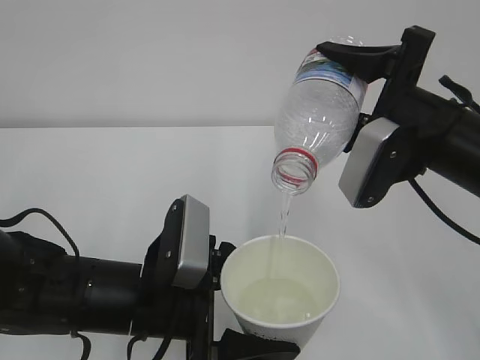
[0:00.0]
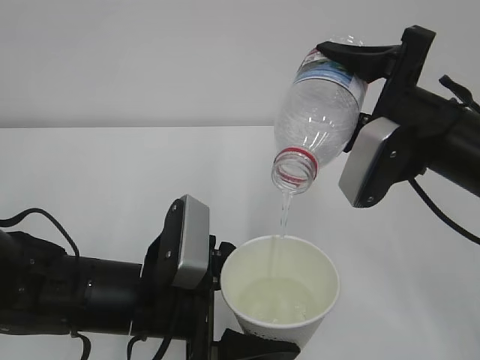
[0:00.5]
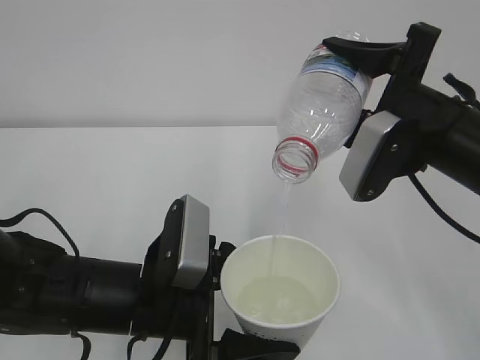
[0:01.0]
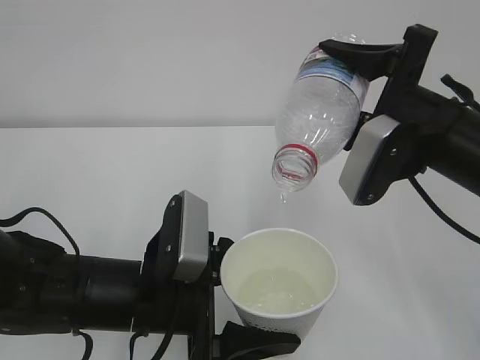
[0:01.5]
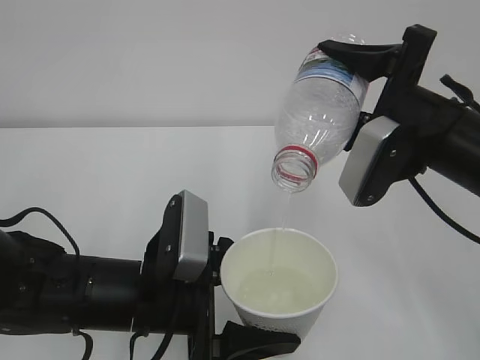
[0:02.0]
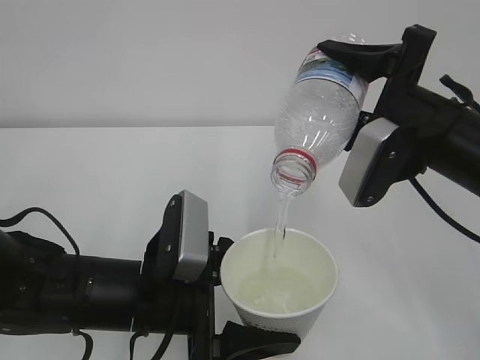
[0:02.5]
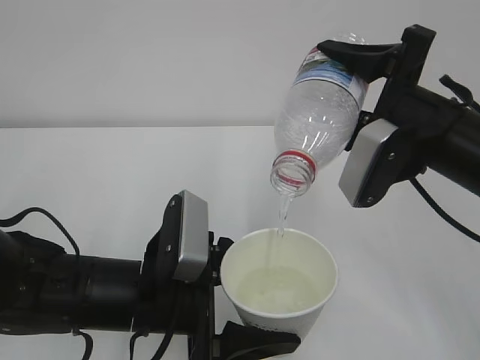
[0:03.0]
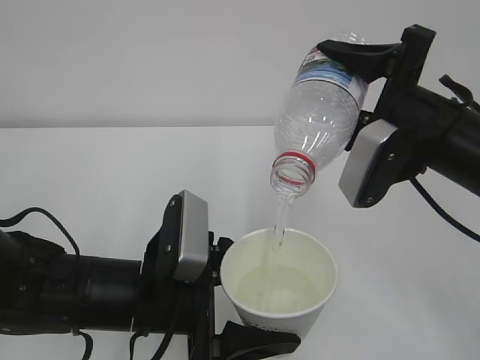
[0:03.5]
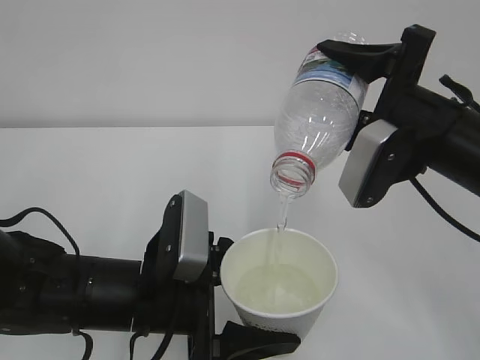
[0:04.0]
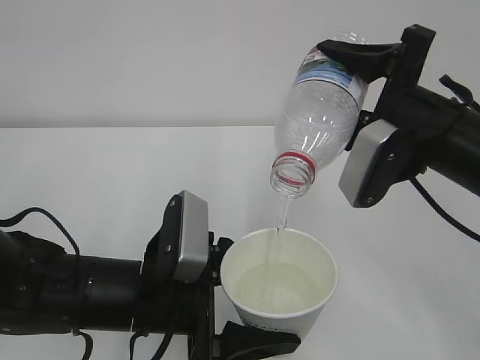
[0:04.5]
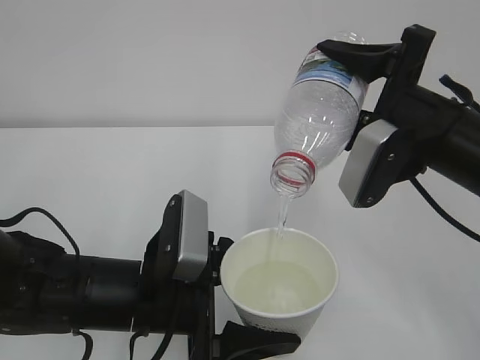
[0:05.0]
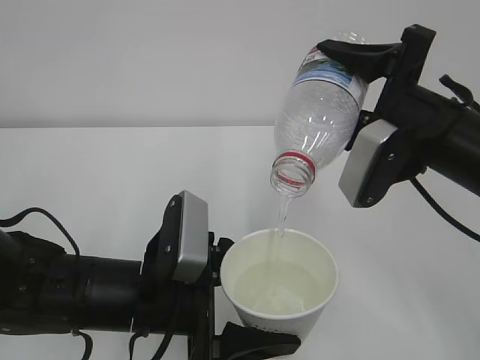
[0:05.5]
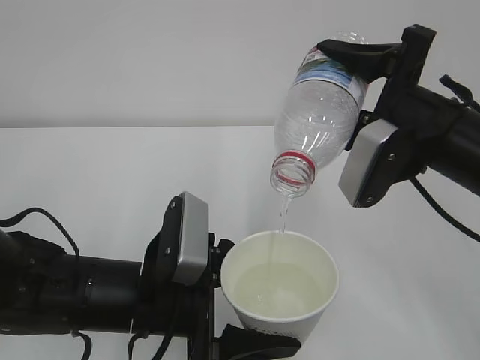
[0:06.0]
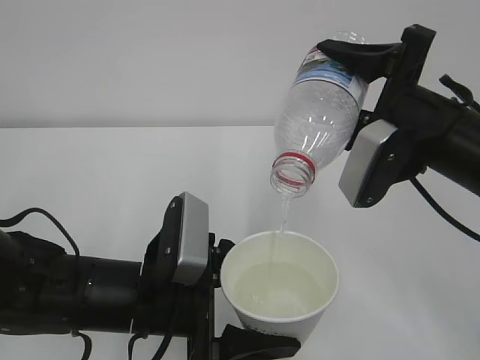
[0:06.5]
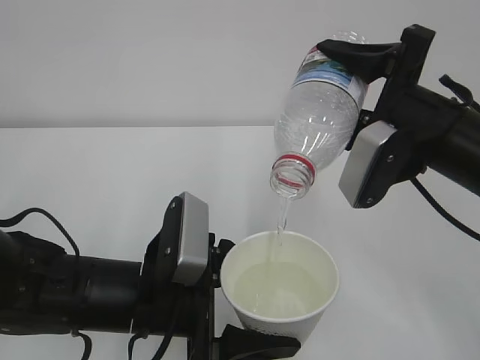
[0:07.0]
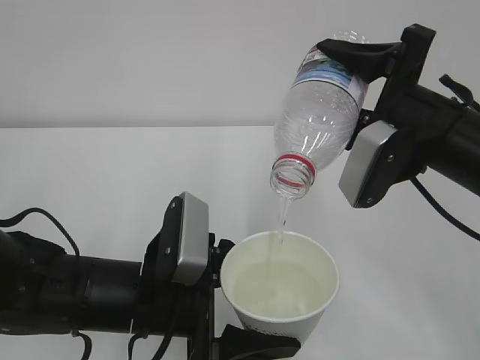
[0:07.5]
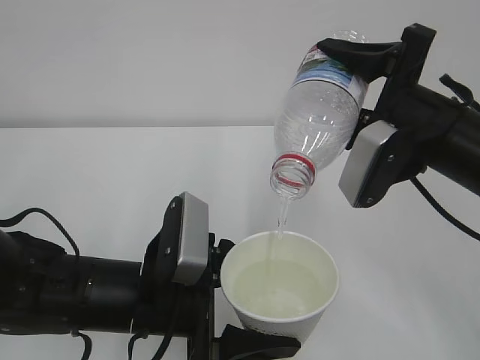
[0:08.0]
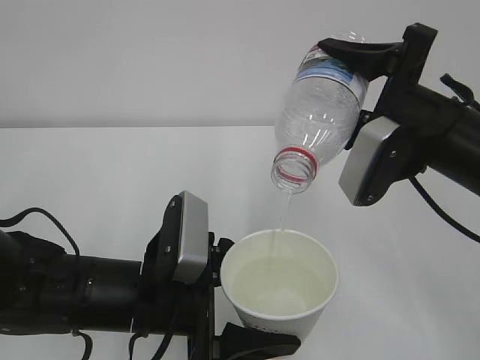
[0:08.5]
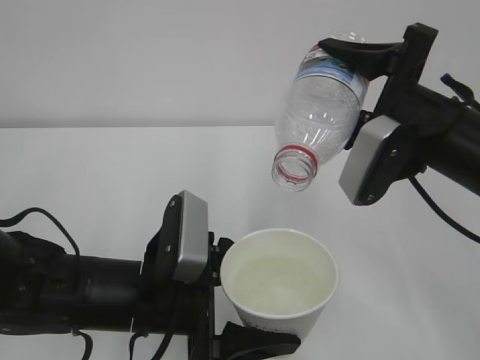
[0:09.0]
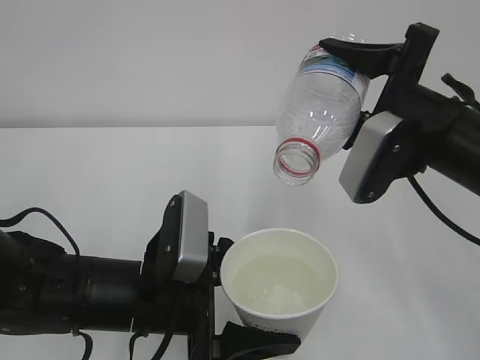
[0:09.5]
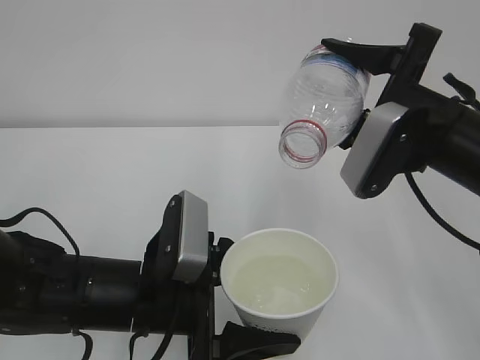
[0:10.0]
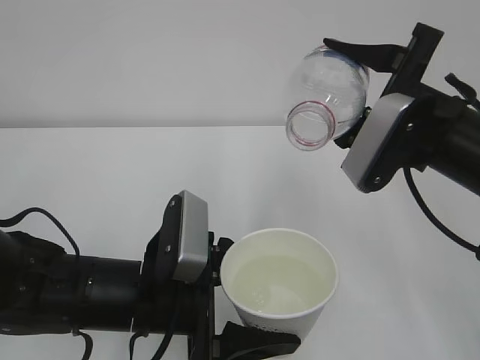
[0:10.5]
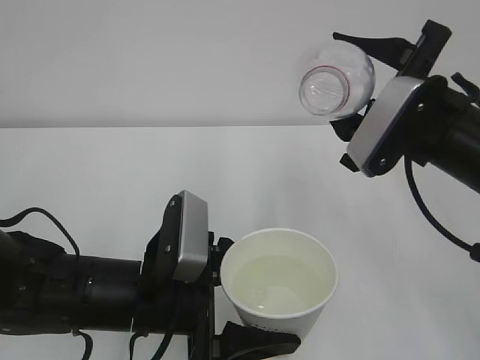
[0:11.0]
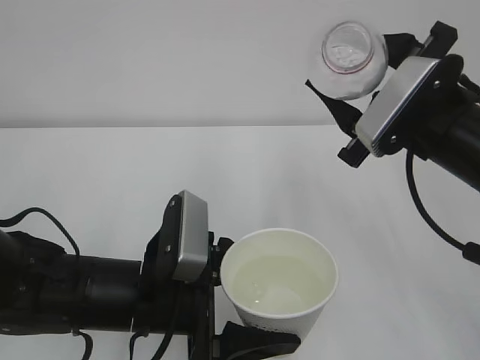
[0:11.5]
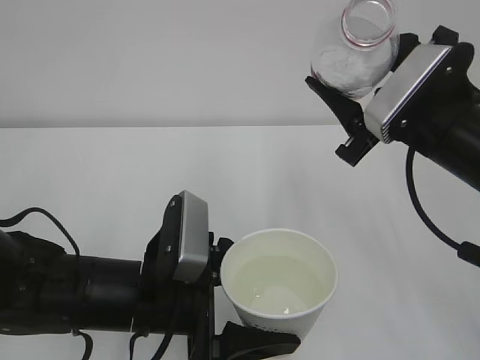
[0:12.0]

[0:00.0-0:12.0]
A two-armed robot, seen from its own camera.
0:00.0 to 0:08.0: The two grippers keep their place.
0:08.0 to 0:10.0: There are only small adjustments of the grippers.

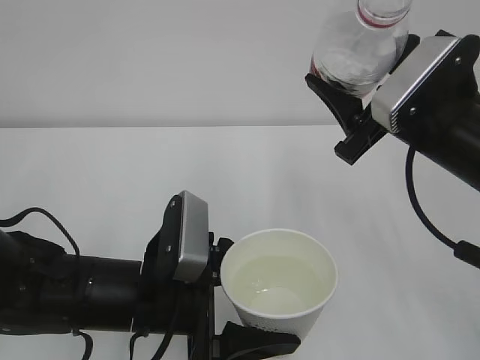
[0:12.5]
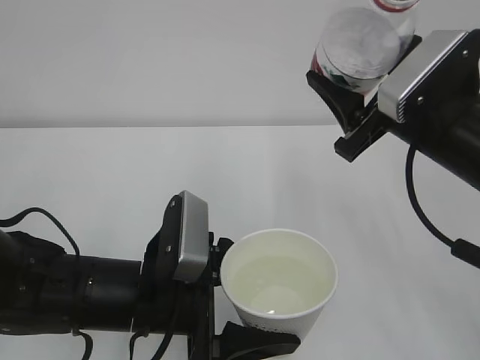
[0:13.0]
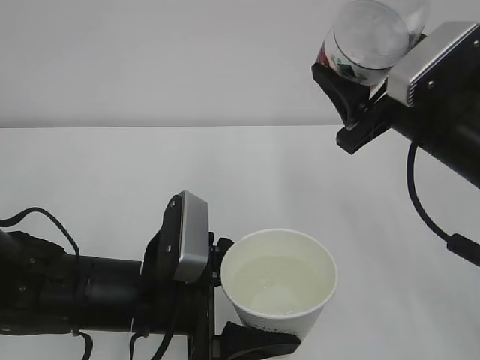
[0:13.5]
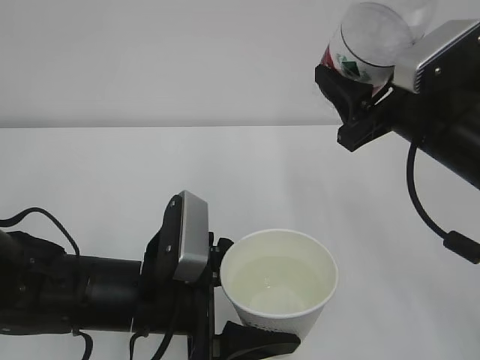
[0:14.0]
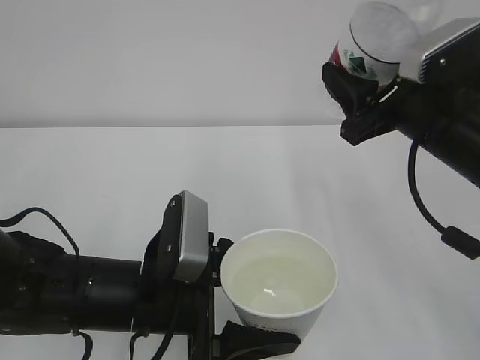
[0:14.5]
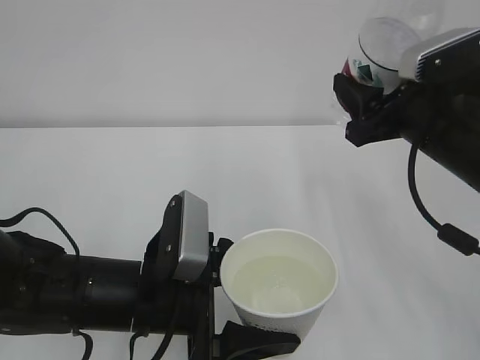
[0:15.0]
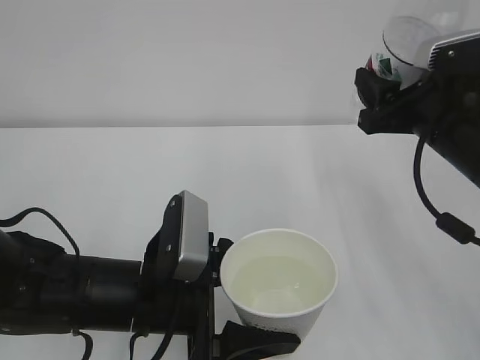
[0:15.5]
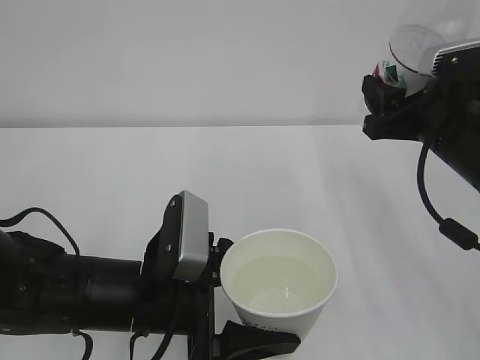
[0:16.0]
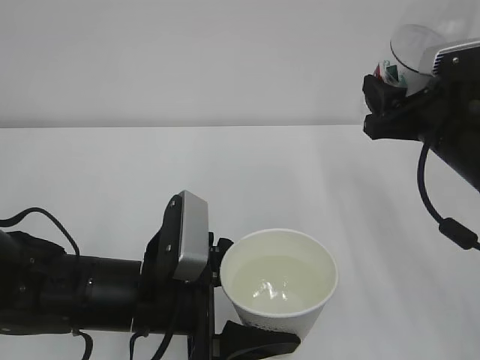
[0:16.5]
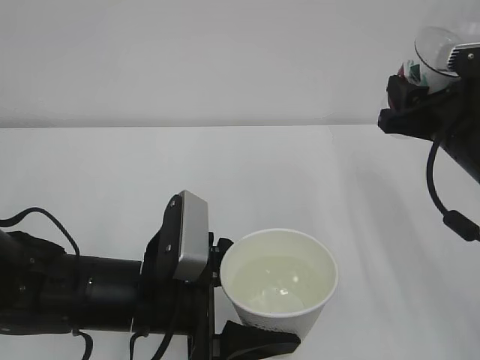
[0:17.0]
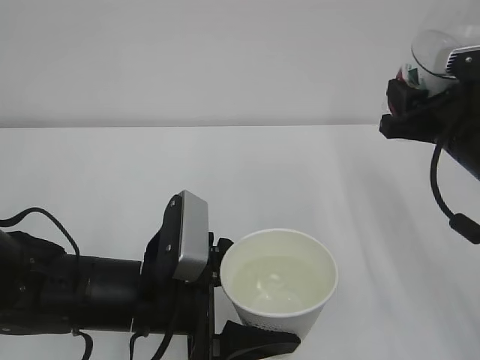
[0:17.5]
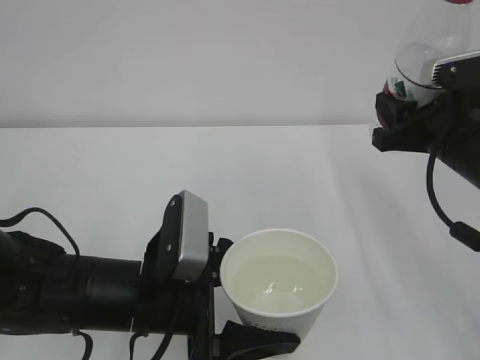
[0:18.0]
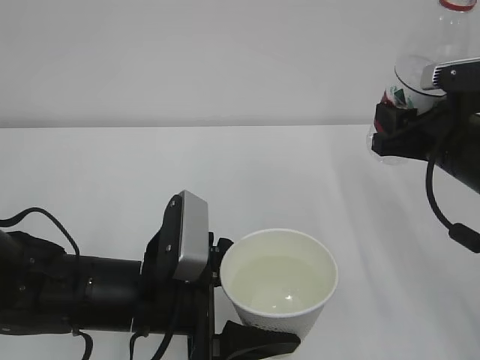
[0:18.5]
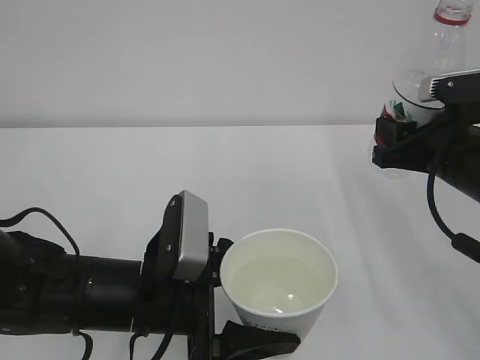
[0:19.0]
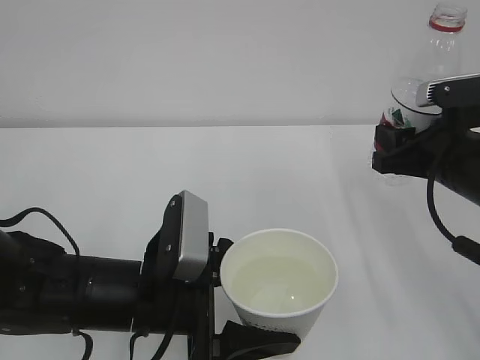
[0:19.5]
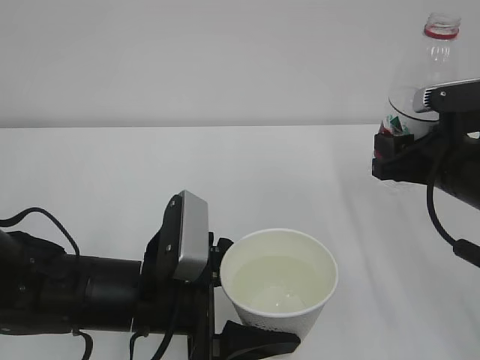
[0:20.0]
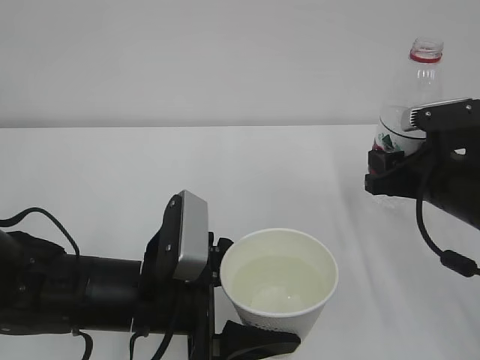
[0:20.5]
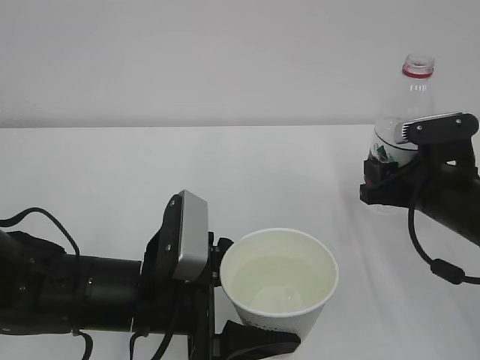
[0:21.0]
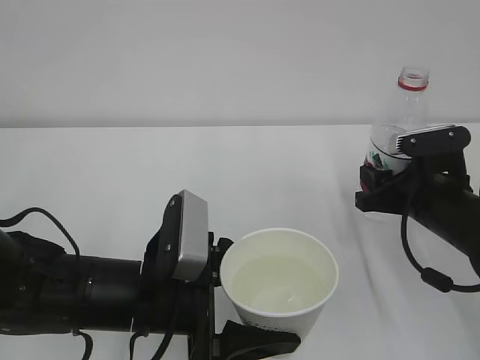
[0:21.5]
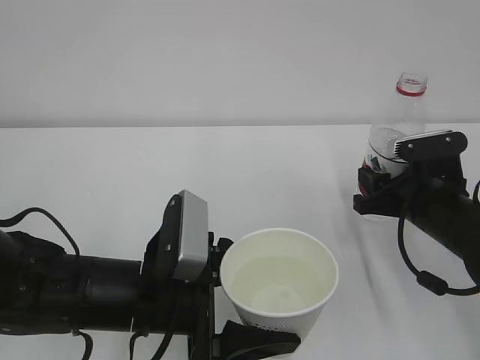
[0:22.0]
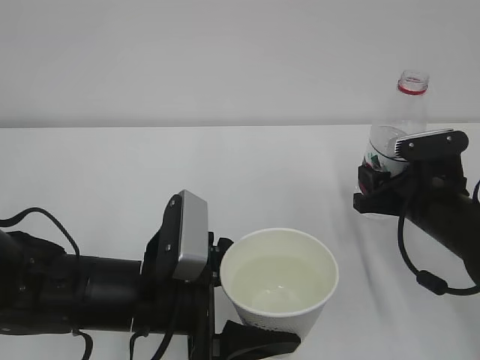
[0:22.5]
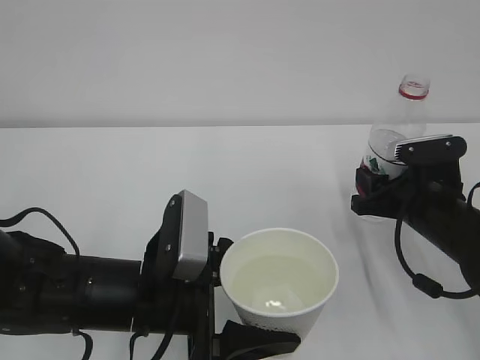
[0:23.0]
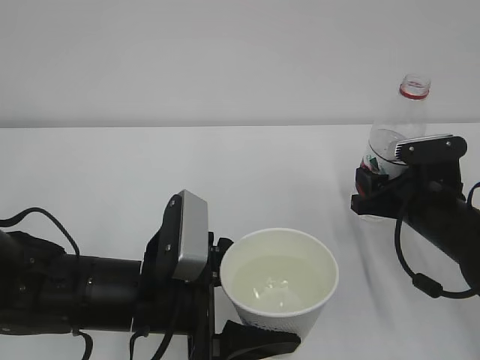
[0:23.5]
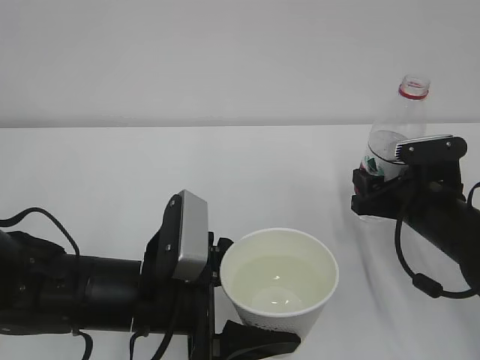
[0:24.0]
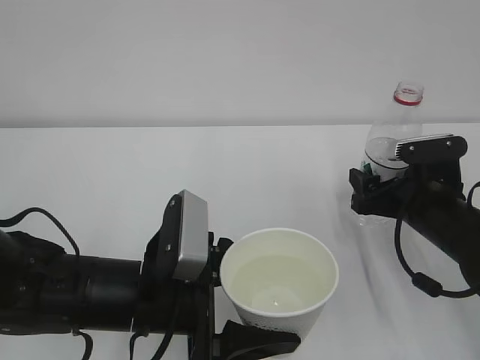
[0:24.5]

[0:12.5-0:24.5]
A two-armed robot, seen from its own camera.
0:14.5 to 0:16.5: The grippers move only a little.
0:16.5 to 0:18.5: The right gripper closes its fingers.
0:18.5 to 0:20.5: The grippers stay close to where they were, moving slightly.
0:20.5 to 0:22.5: The grippers stay close to where they were, moving slightly.
0:22.5 to 0:24.5: The right gripper opens its fingers.

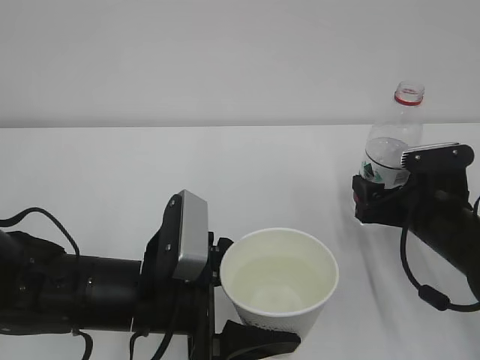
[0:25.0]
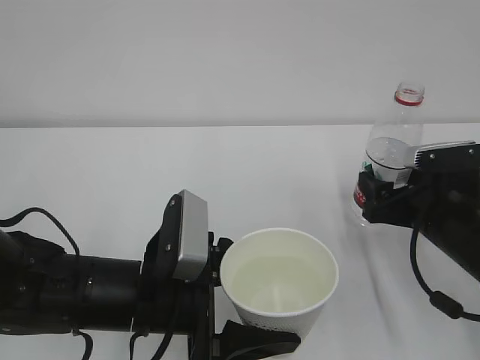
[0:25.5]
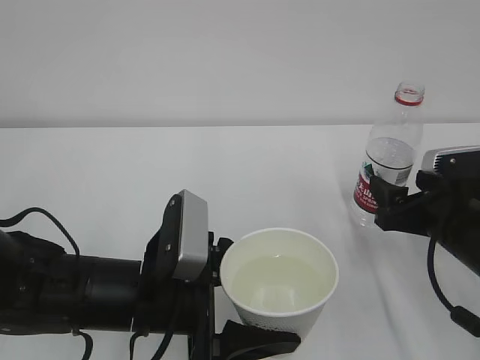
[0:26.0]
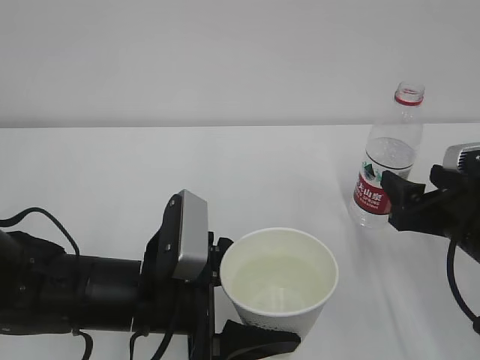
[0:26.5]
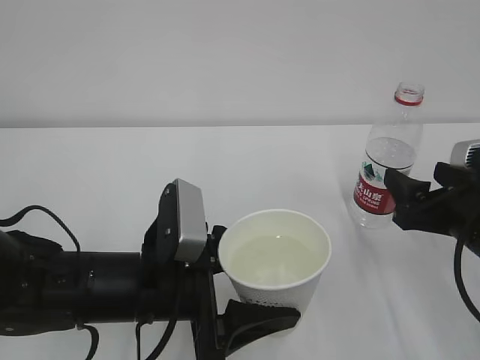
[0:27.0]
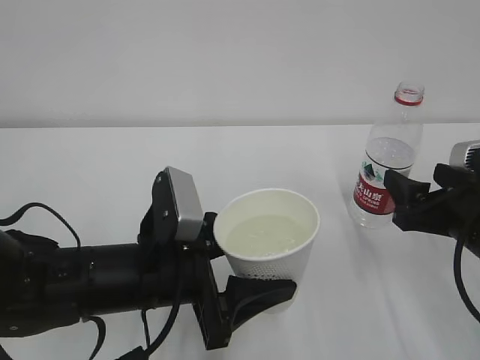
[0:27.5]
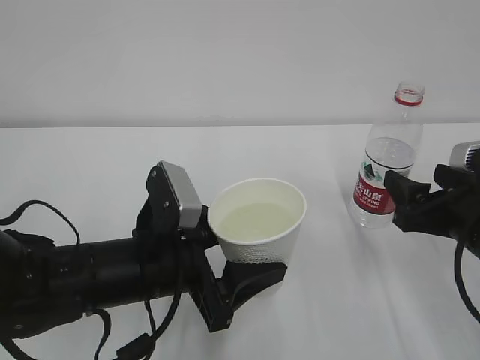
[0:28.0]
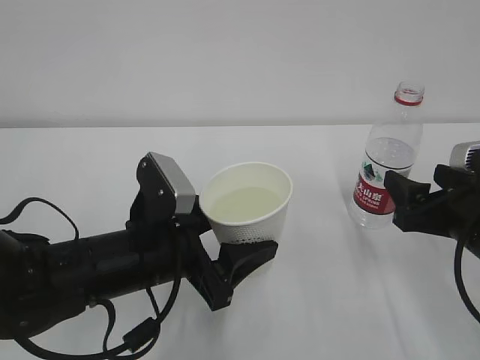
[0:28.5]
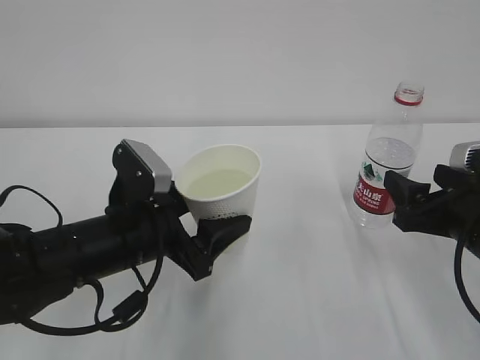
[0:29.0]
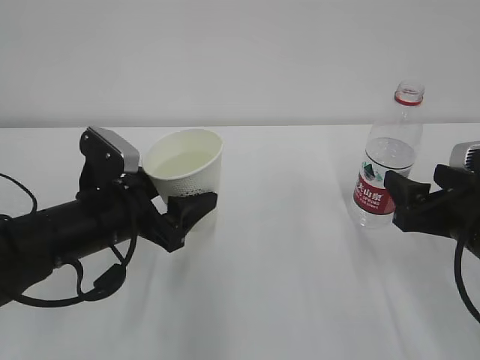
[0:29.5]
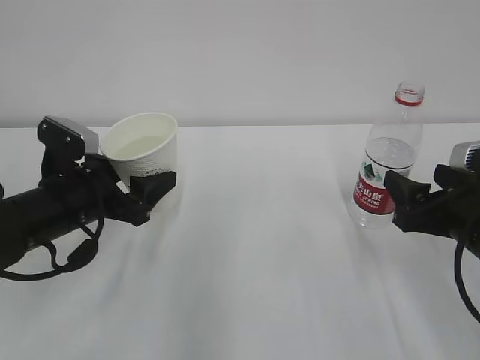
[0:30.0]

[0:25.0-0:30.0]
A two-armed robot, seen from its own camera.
0:25.0 to 0:27.5: The right gripper heads backward and upward, covering approximately 10 cm.
0:27.5 to 0:30.0: The left gripper moves to the left and forward, roughly 15 cm.
